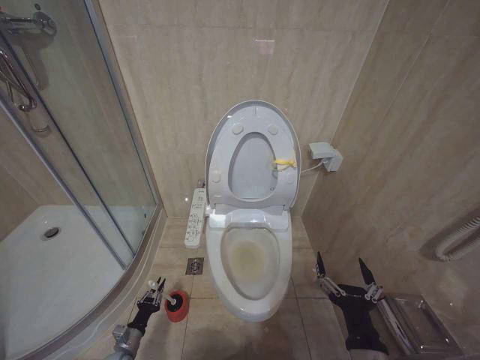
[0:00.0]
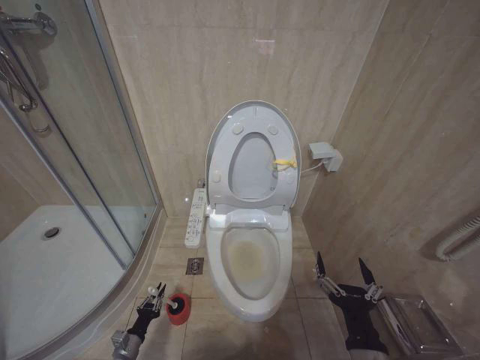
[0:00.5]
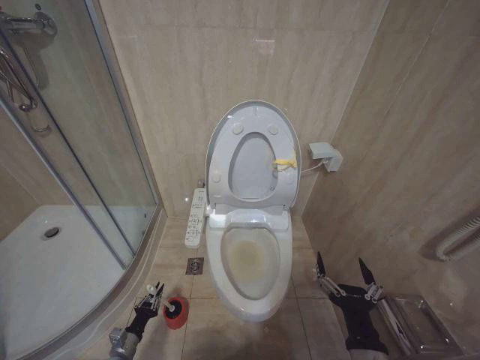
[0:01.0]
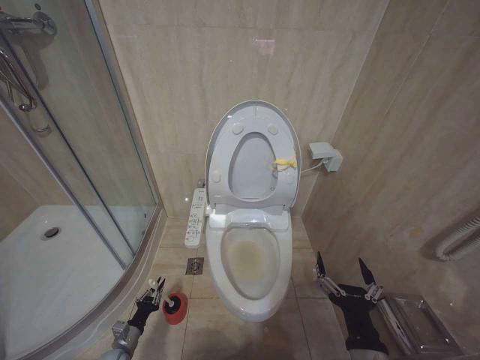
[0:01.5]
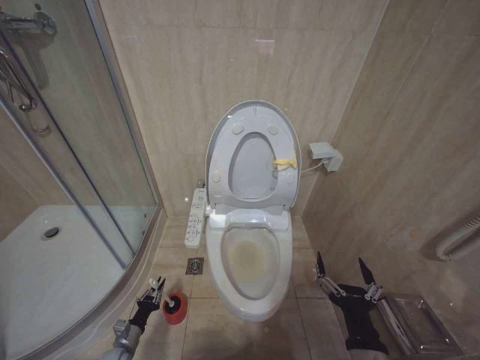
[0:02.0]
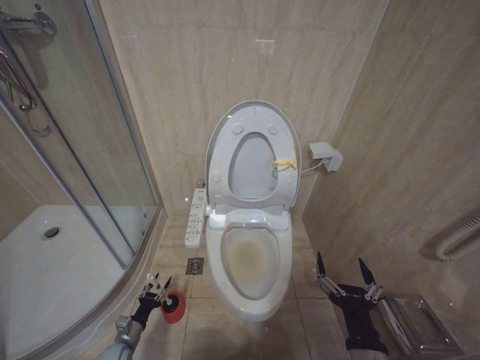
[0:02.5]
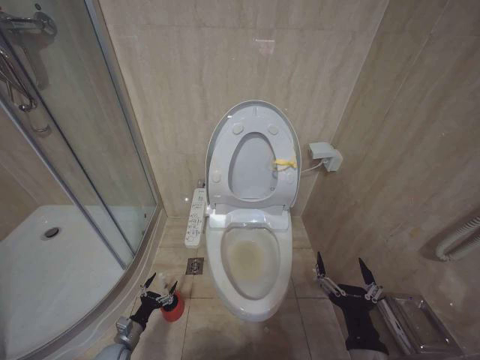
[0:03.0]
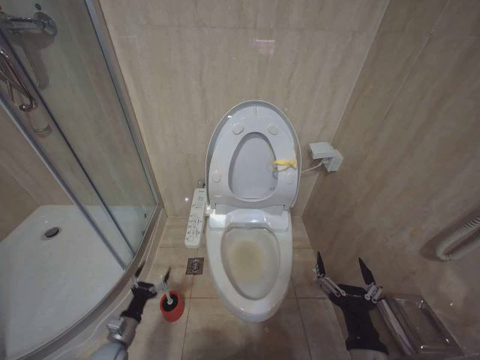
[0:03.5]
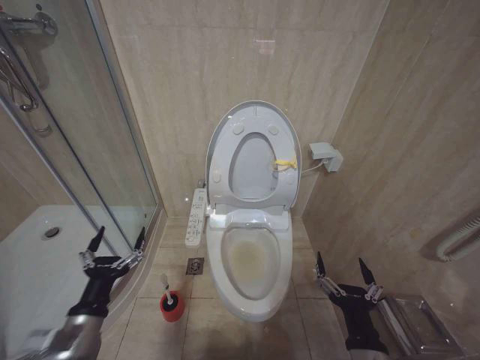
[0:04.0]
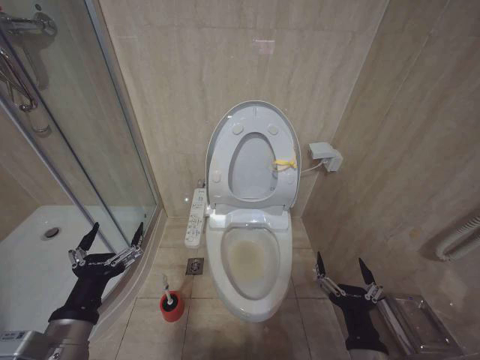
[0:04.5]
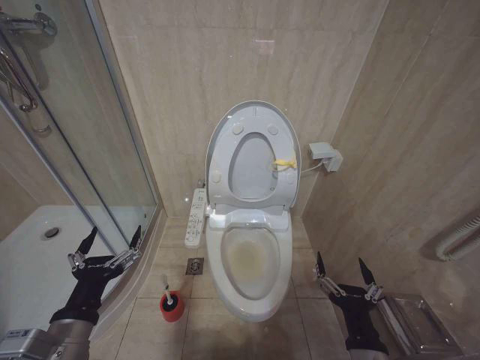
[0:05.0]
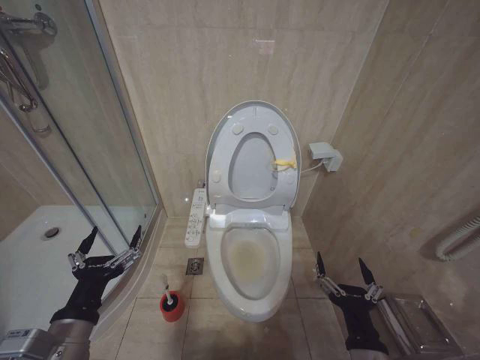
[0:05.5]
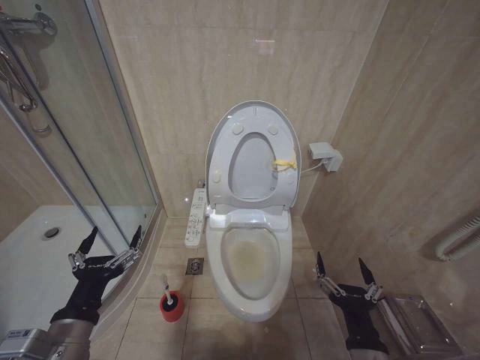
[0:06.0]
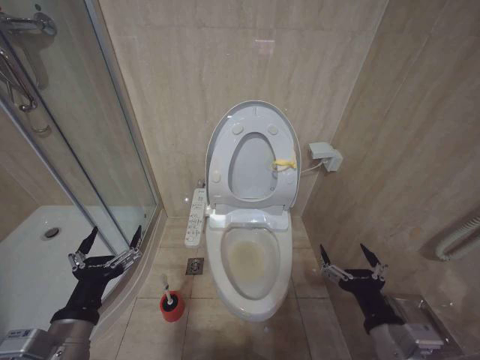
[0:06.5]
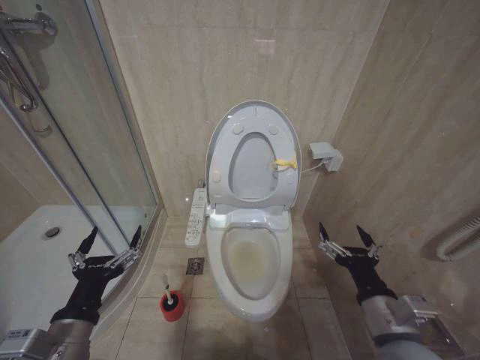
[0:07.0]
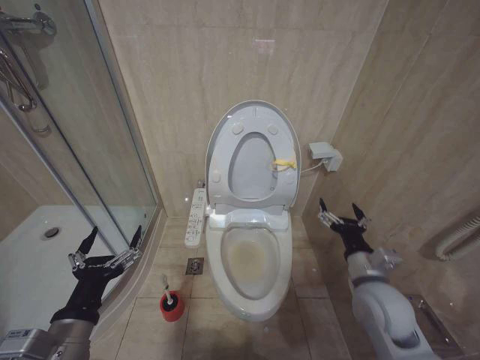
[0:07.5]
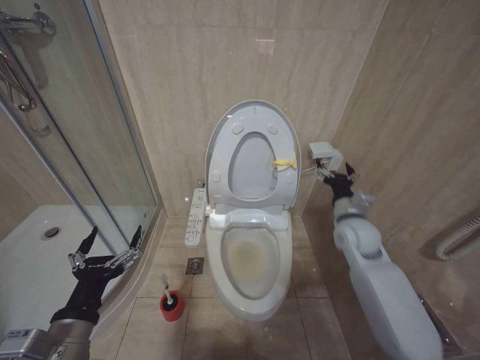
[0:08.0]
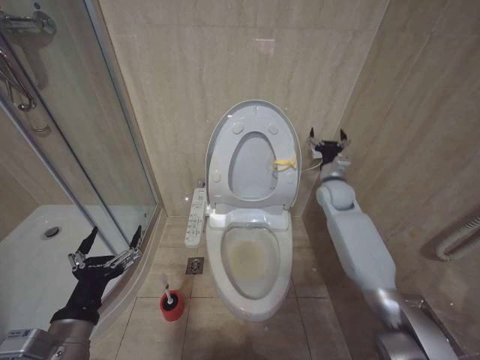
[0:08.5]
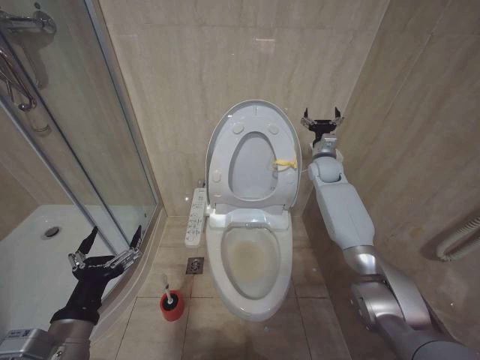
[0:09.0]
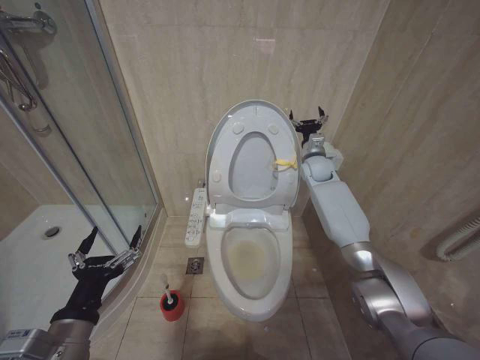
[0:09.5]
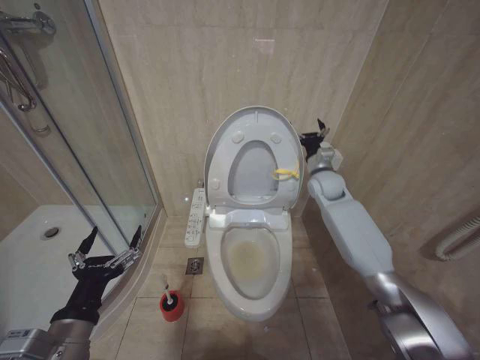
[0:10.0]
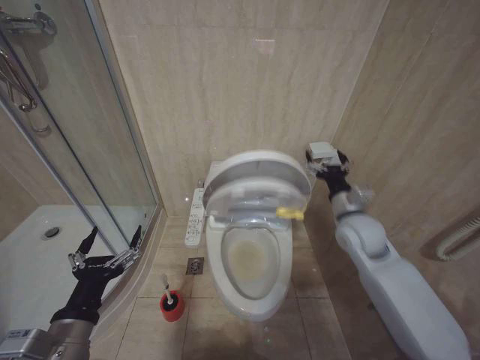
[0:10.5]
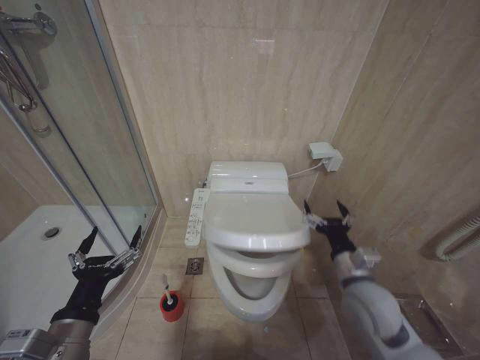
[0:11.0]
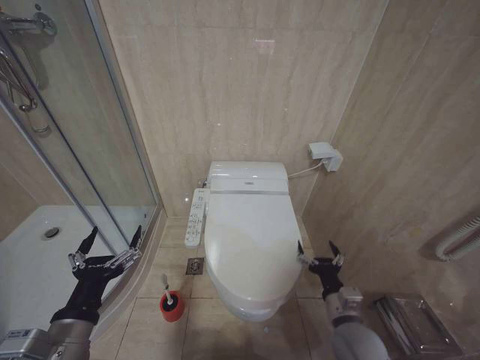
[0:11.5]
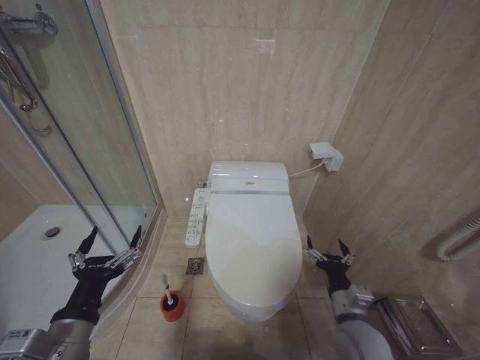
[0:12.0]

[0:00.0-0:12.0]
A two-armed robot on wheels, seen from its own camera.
Task of the whole recording: Open the toilet lid, clean the toilet bowl with a toilet brush, close the toilet lid, and flush.
0:02.0 to 0:04.0: The left gripper is displaced upward by some 30 cm, and opens its fingers.
0:04.0 to 0:06.0: The left gripper travels upward and backward by roughly 10 cm.
0:06.0 to 0:08.0: The right gripper moves forward, some 25 cm.
0:08.0 to 0:10.0: The right gripper is displaced forward by roughly 20 cm.
0:10.0 to 0:12.0: The right gripper moves backward and downward, approximately 40 cm.

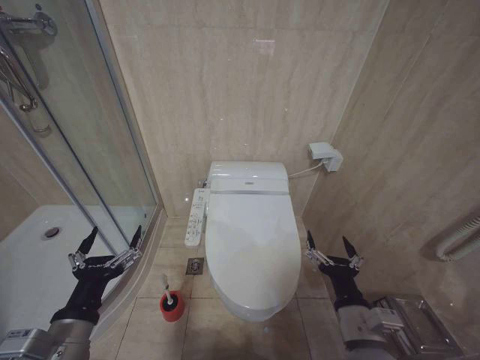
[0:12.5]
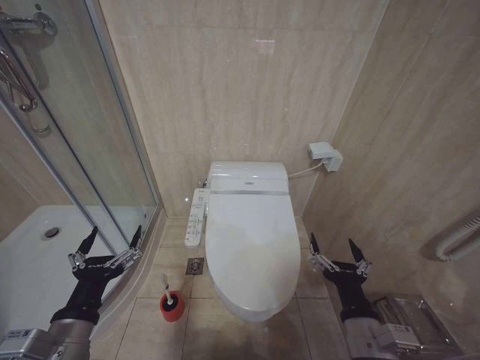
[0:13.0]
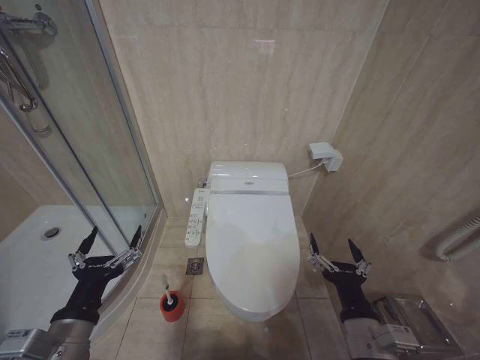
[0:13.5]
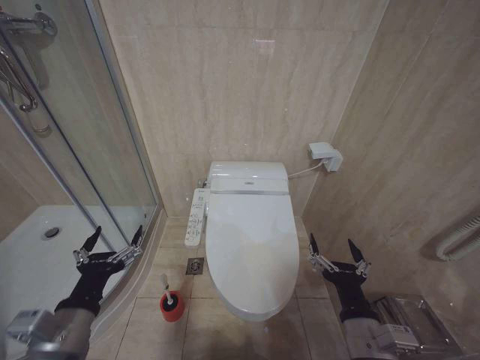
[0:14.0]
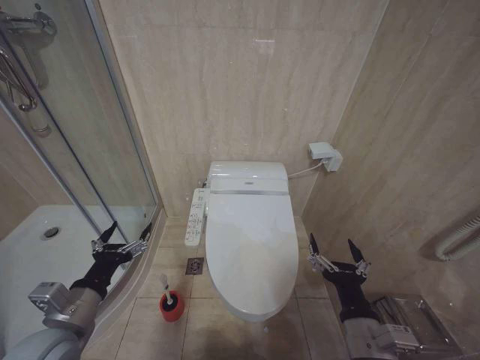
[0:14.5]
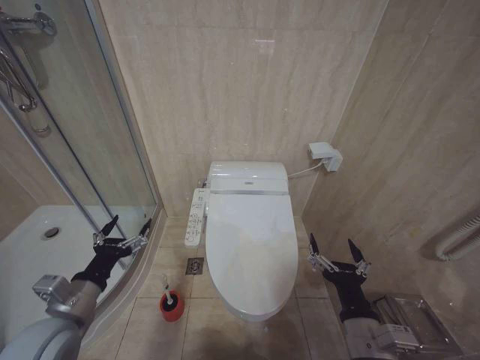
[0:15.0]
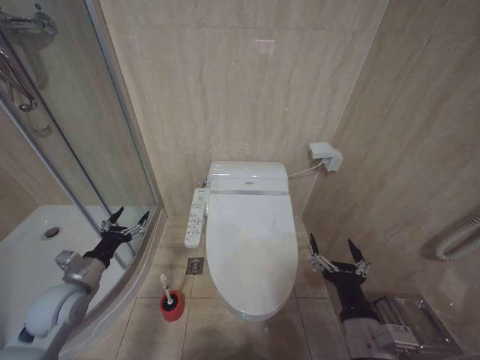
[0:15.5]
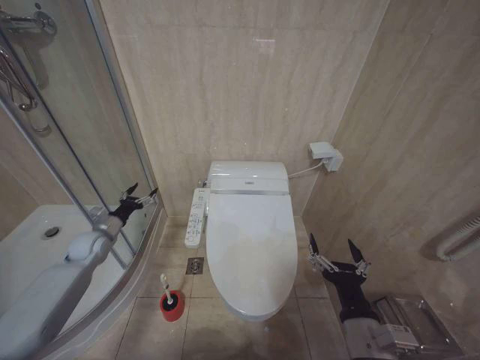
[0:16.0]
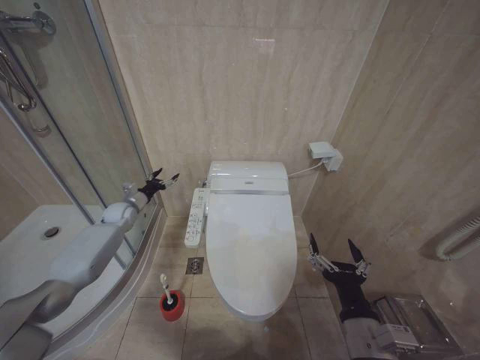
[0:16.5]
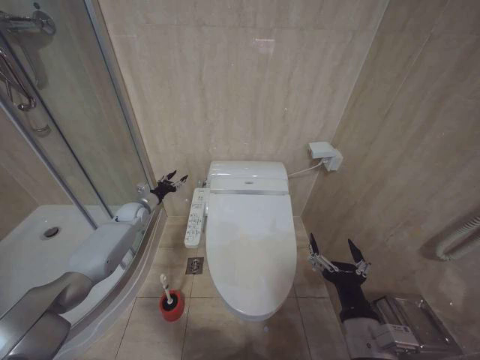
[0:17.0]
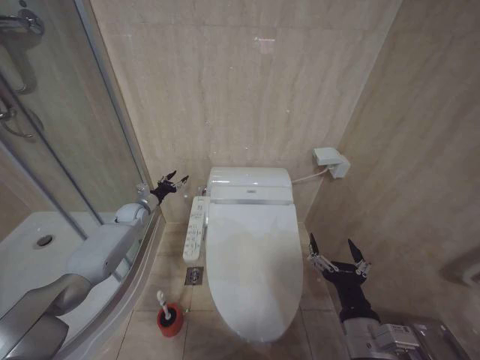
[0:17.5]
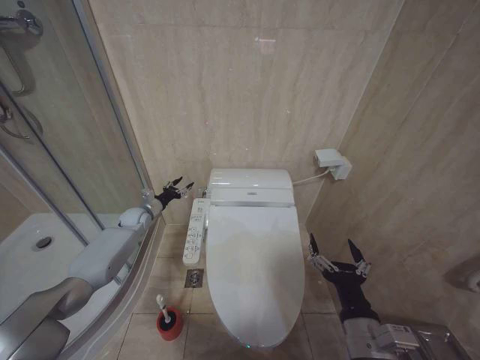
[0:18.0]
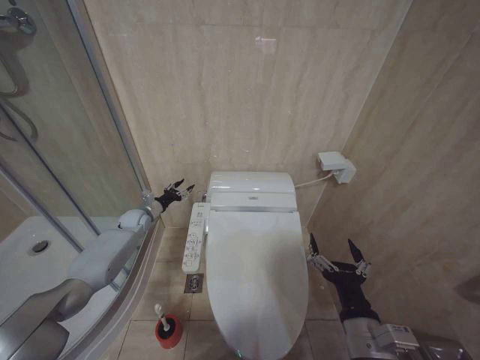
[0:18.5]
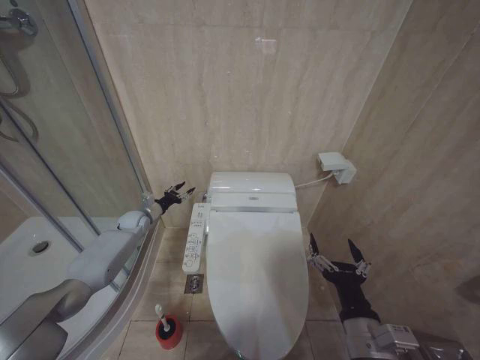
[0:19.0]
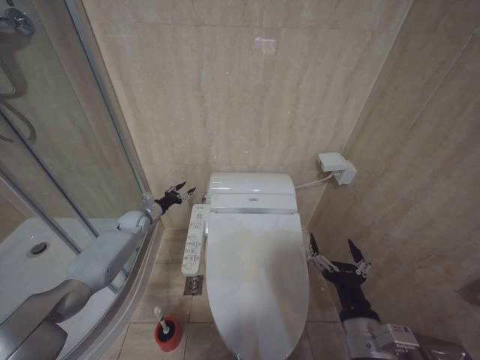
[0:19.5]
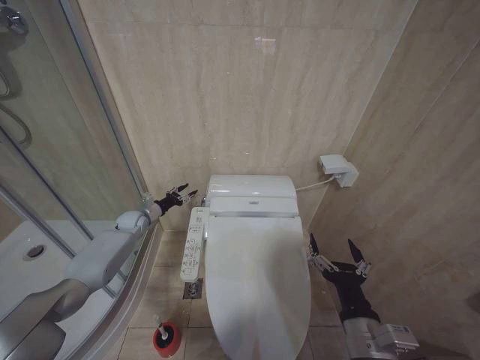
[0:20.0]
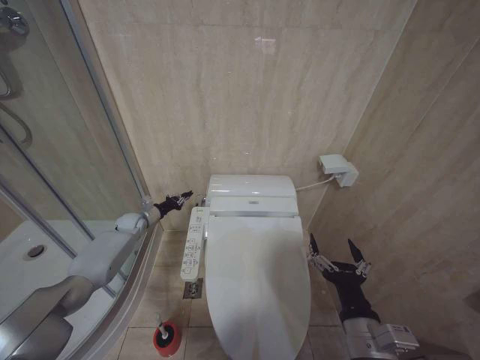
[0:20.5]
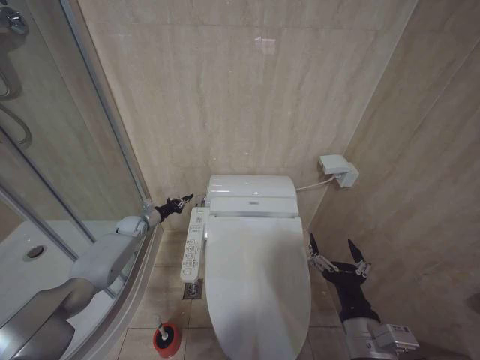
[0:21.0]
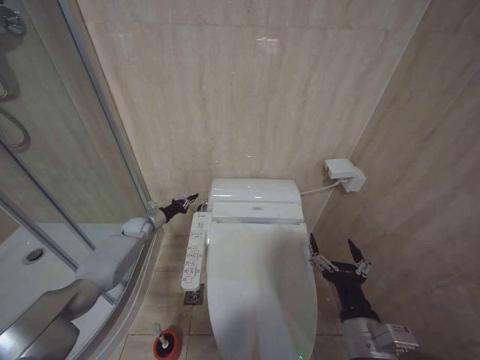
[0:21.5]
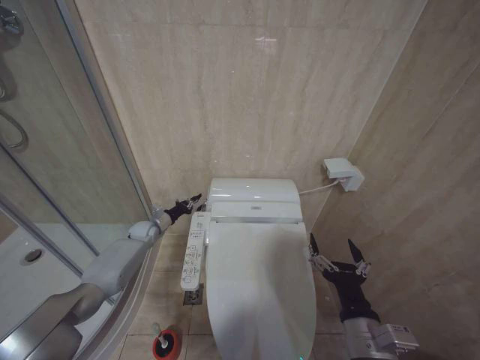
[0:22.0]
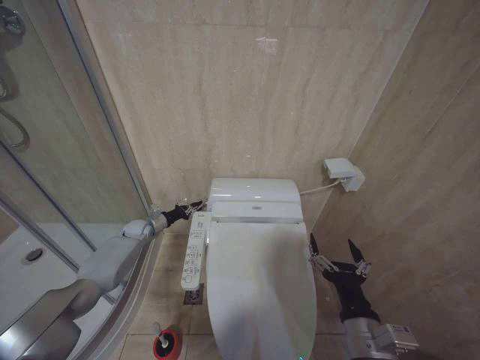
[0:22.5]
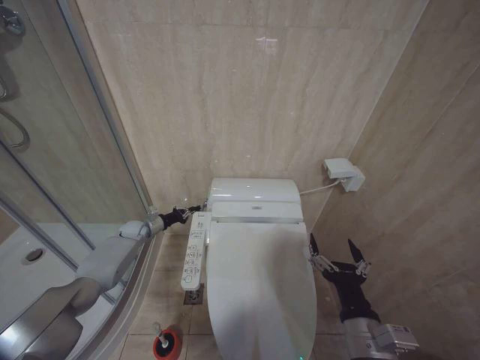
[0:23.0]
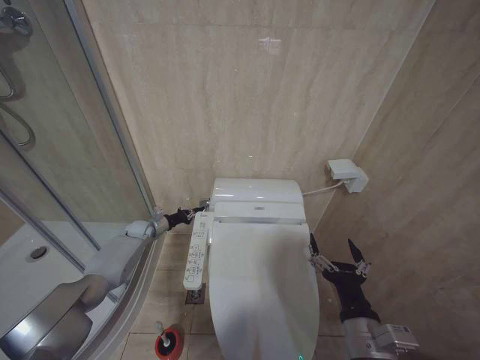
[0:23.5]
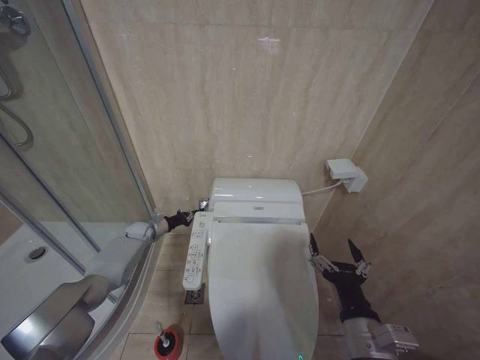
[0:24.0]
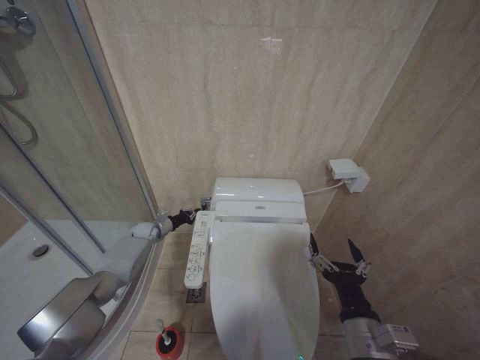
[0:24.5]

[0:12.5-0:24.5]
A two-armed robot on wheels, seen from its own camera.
Task of the whole recording: Open the toilet lid, clean the toilet bowl with a toilet brush, close the toilet lid, and flush.
0:12.5 to 0:14.5: The left gripper travels forward by roughly 5 cm.
0:14.5 to 0:16.5: The left gripper travels forward by approximately 35 cm.
0:16.5 to 0:18.5: The left gripper changes place by approximately 5 cm.
0:18.5 to 0:22.5: The grippers make only small movements.
0:22.5 to 0:24.5: The grippers stay close to where they were, moving slightly.

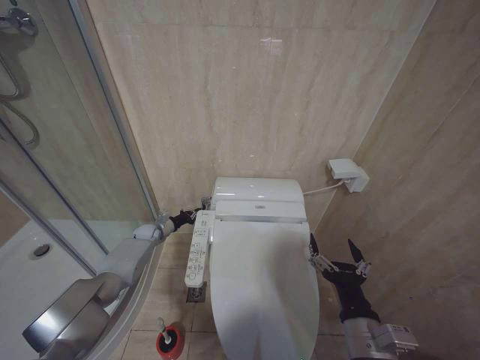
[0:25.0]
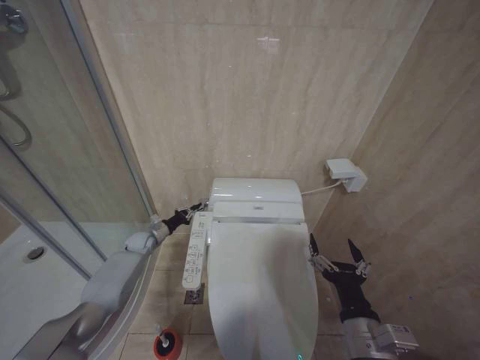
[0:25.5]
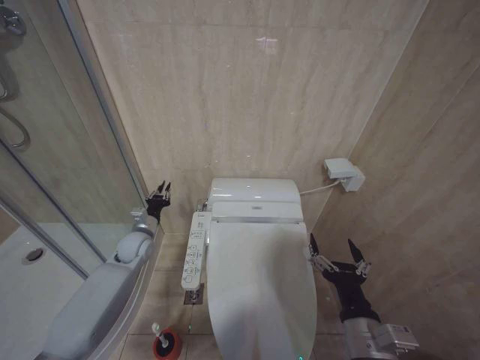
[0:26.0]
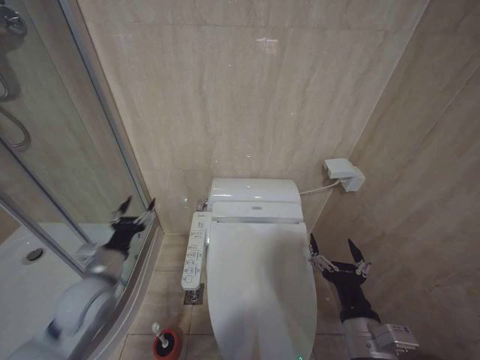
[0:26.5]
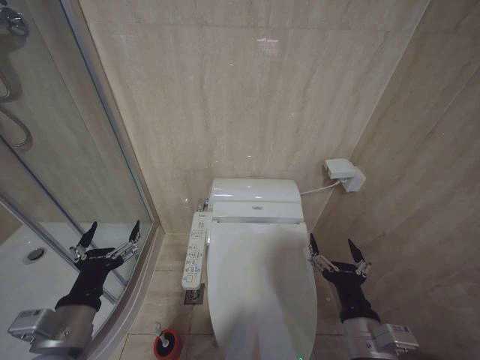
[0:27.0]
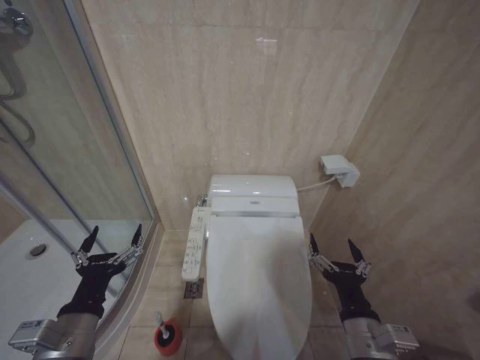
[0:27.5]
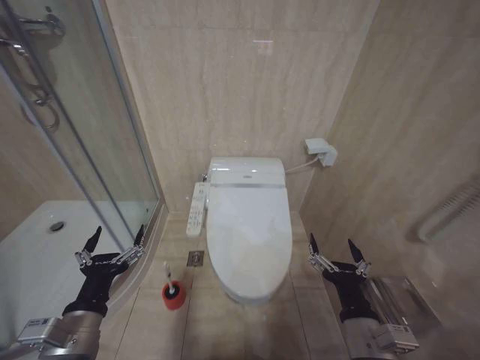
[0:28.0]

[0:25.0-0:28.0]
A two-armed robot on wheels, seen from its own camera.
Task of the whole recording: Open the toilet lid, clean the toilet bowl with a toilet brush, close the toilet lid, and flush.
0:25.0 to 0:26.5: The left gripper goes about 30 cm backward and upward, and opens up.
0:26.5 to 0:28.0: The left gripper moves backward, roughly 15 cm, and opens up.
